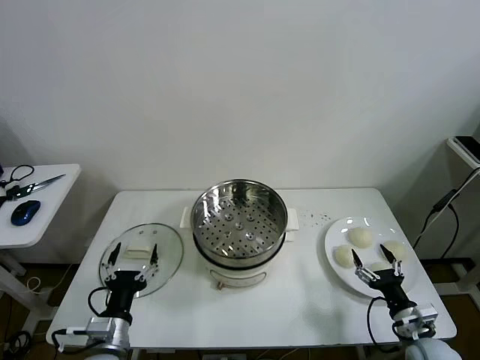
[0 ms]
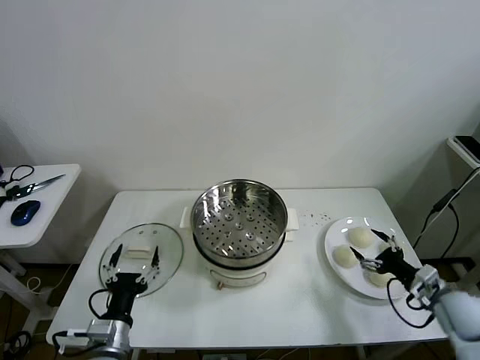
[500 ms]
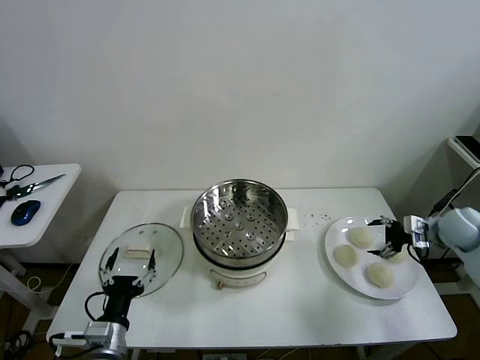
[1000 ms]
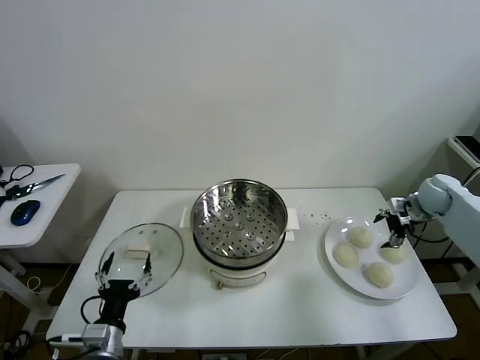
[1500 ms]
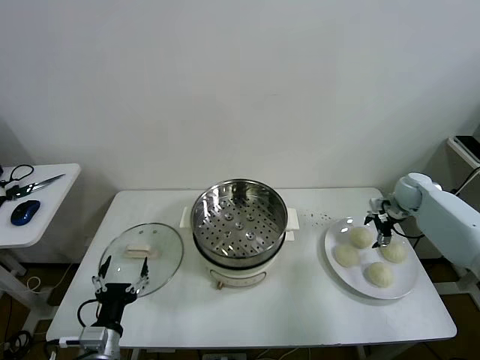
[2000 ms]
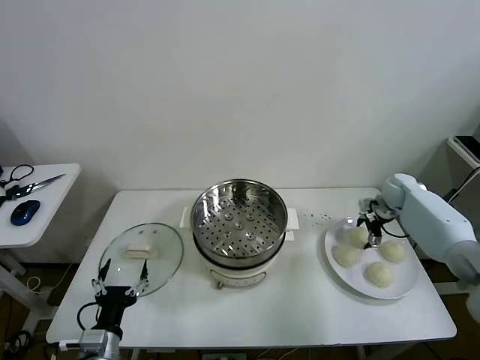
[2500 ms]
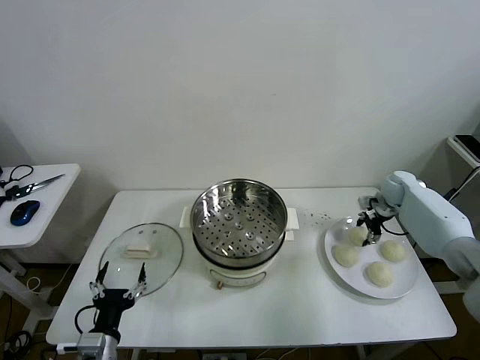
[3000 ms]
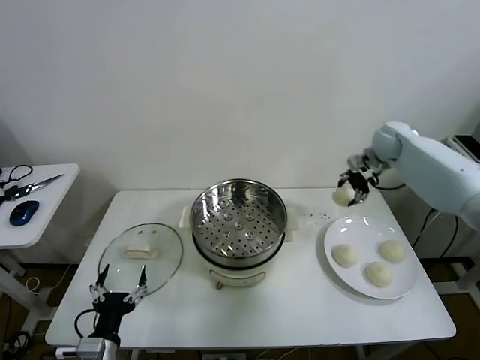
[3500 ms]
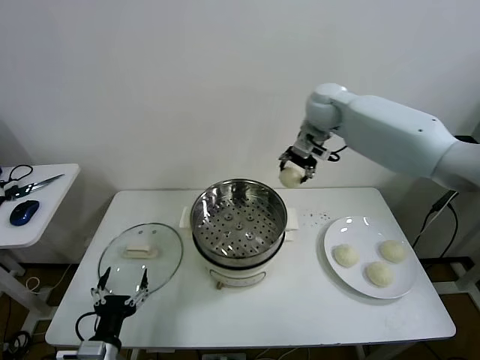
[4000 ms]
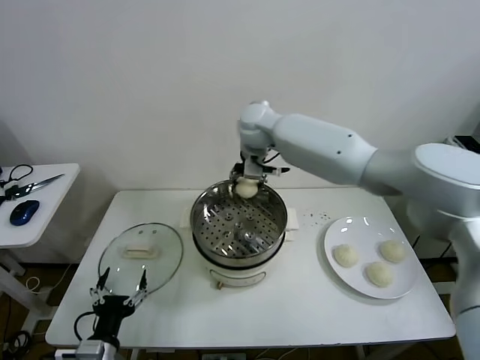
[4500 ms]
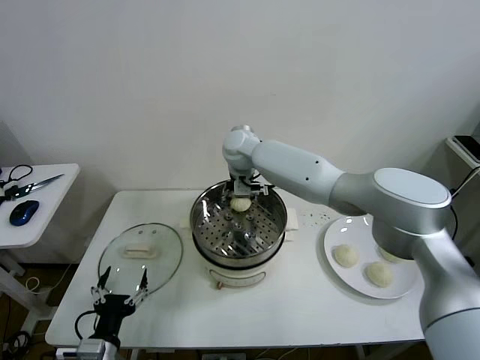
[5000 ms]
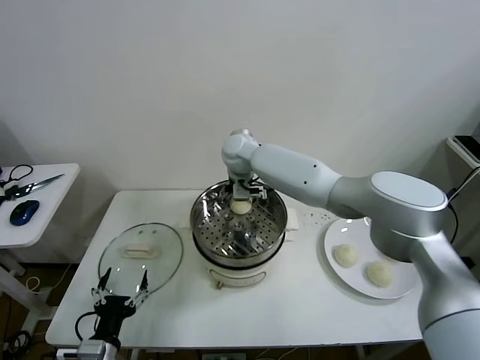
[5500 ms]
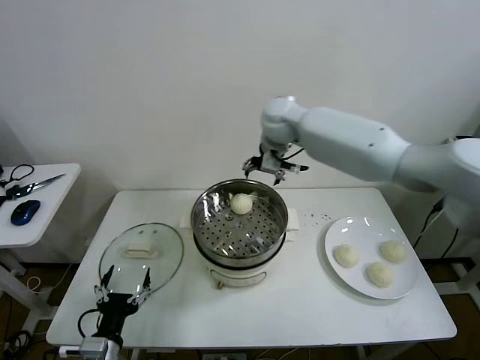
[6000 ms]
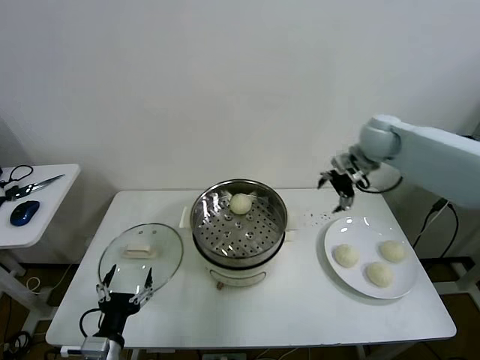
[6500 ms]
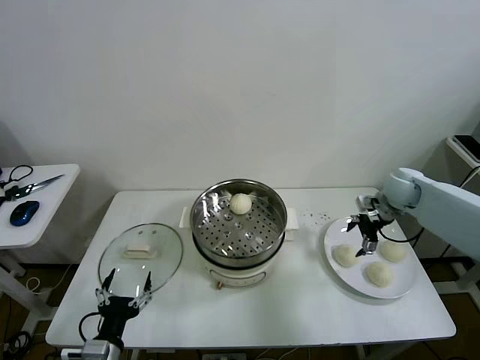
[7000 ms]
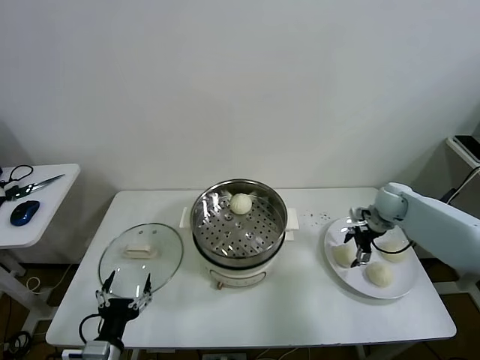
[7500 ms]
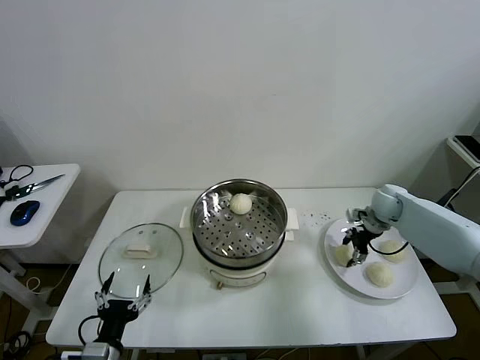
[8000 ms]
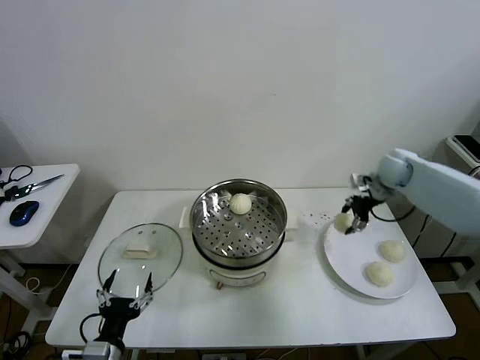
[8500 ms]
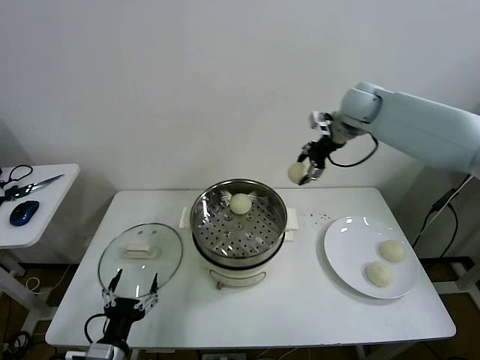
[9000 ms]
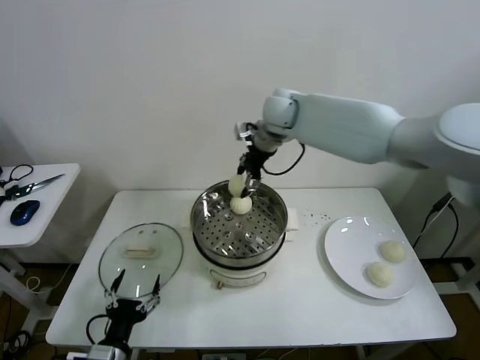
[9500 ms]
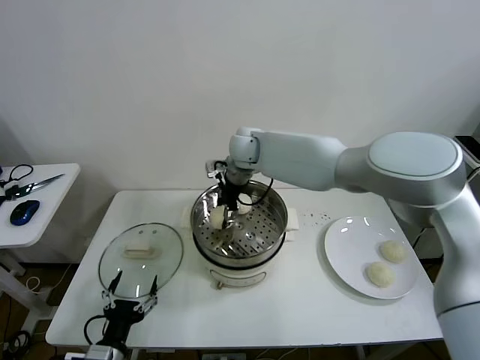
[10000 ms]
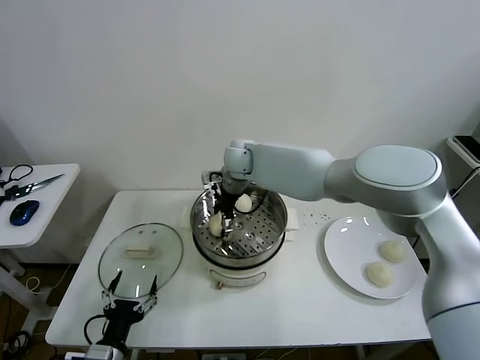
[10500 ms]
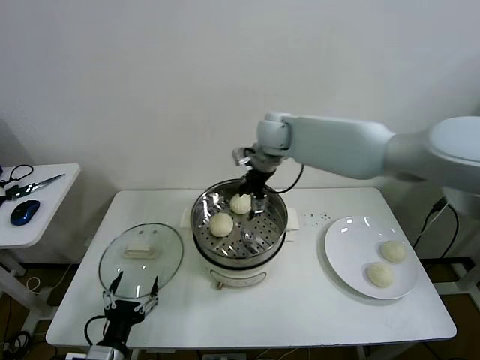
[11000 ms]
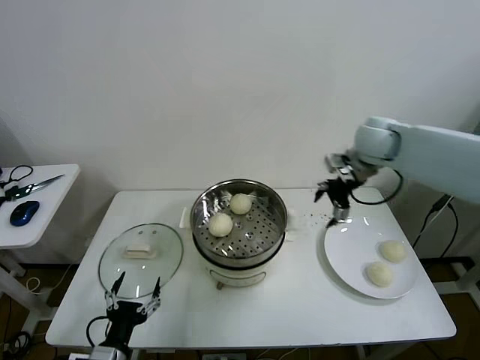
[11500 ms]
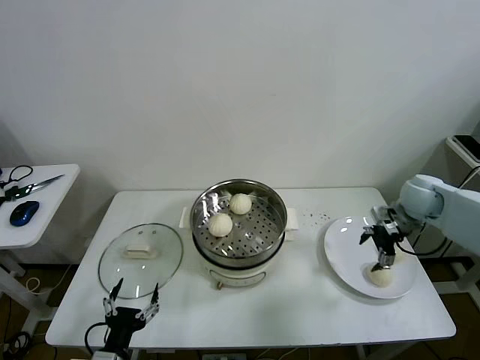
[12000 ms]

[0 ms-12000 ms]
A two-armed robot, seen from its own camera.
Task of the whole recording: take steamed baozi put them in steamer then cover it.
Step, 0 ms to 2500 ms: Grasp the baozi in the plate with right gripper.
Step, 3000 ms to 5500 ms: Place the baozi on the steamer with right gripper.
Step, 6000 ms to 7500 ms: Grasp the baozi in the plate with right gripper.
Step, 8500 ms to 10500 ms: Place the baozi on the steamer with right gripper.
2000 ms to 4000 ms: The right gripper goes about 35 cm to the left and upward, and closes.
4000 ms to 6000 ms: The right gripper is displaced to the left by approximately 10 cm, and opens.
6000 ms to 8000 ms: The right gripper is displaced to the right and downward by about 40 cm, and closes.
8000 ms to 10000 ms: The right gripper goes about 40 cm to the left and upward.
10000 ms to 12000 ms: The right gripper heads to the right, covering about 40 cm, and opens up.

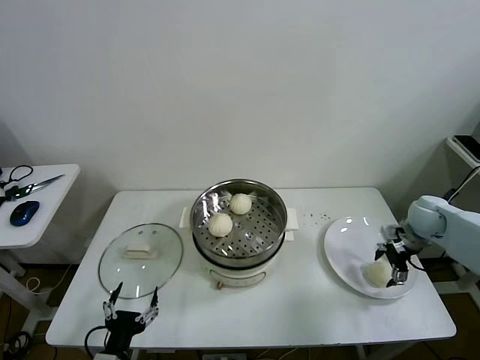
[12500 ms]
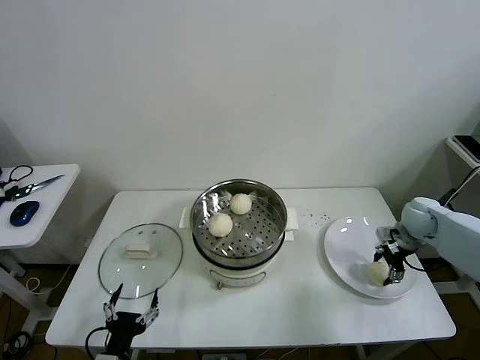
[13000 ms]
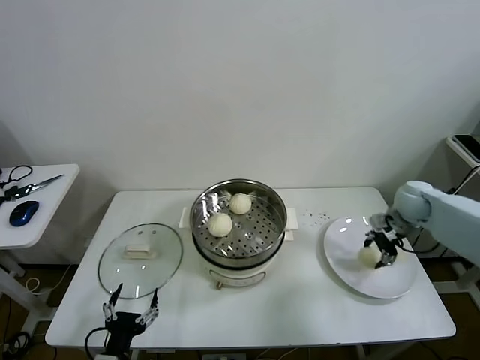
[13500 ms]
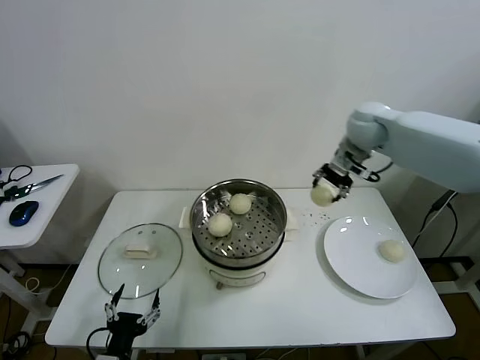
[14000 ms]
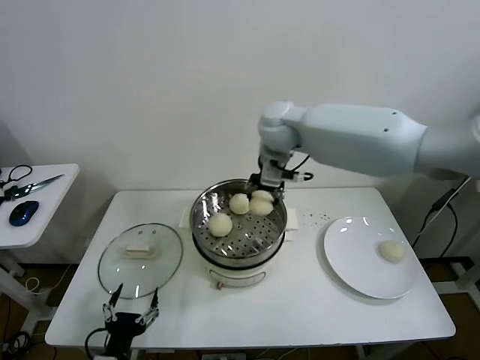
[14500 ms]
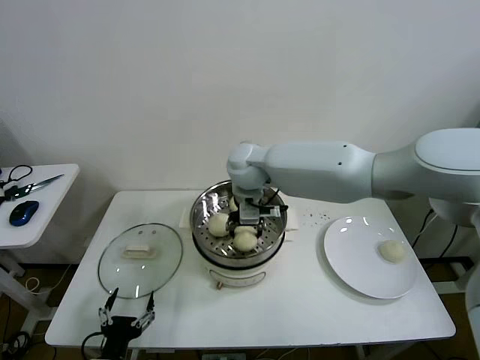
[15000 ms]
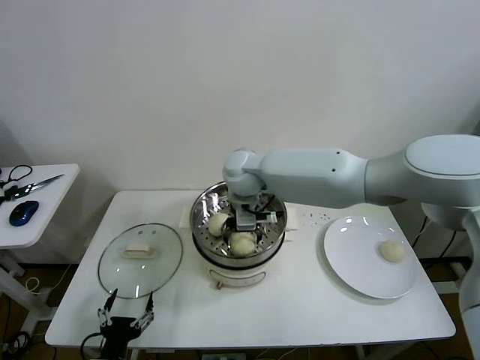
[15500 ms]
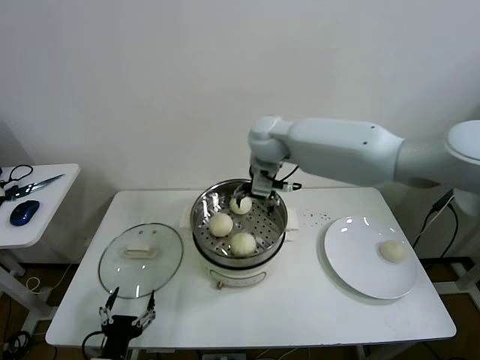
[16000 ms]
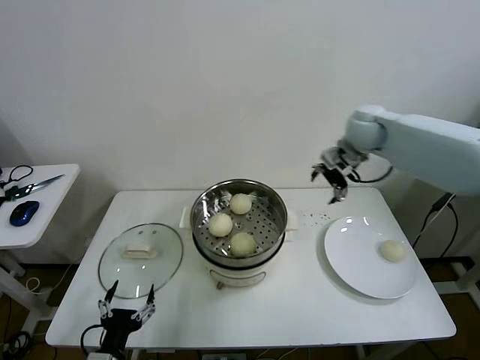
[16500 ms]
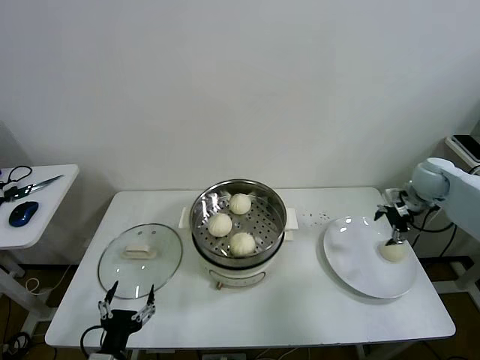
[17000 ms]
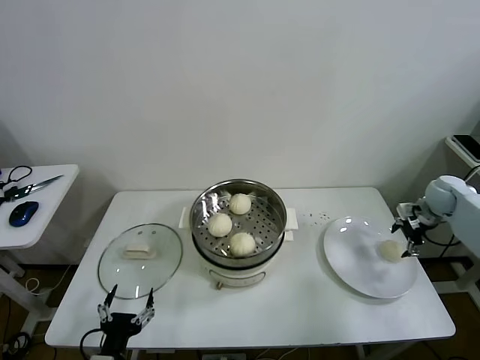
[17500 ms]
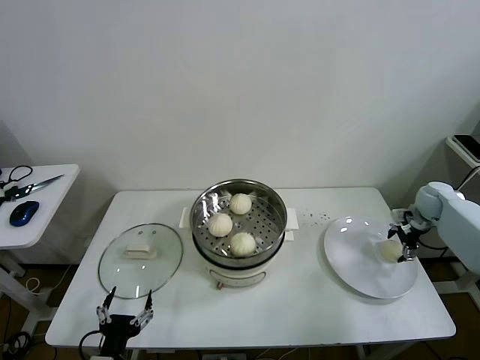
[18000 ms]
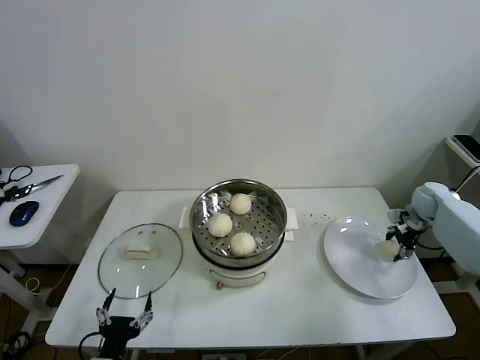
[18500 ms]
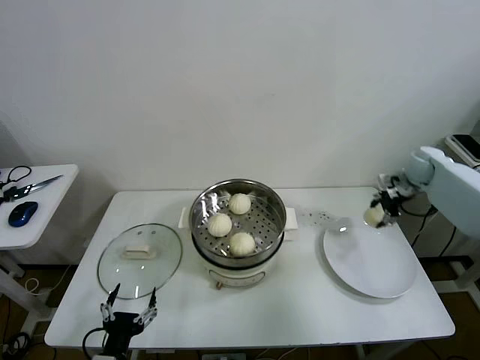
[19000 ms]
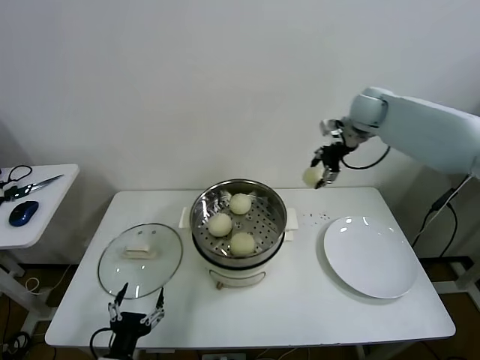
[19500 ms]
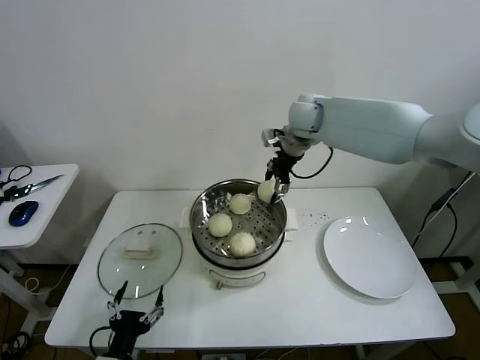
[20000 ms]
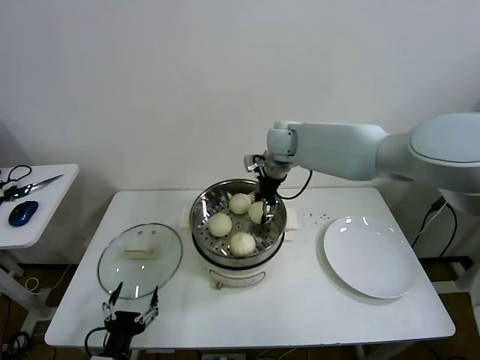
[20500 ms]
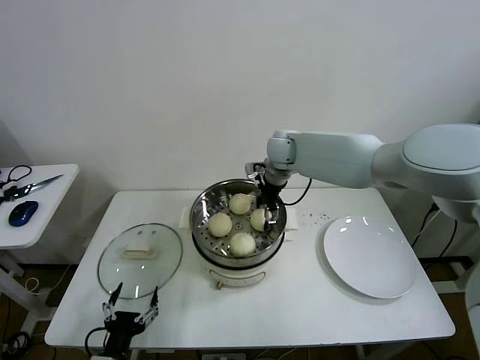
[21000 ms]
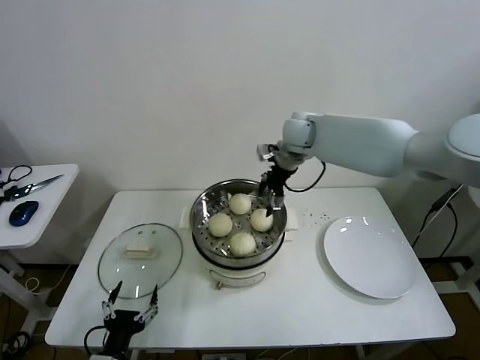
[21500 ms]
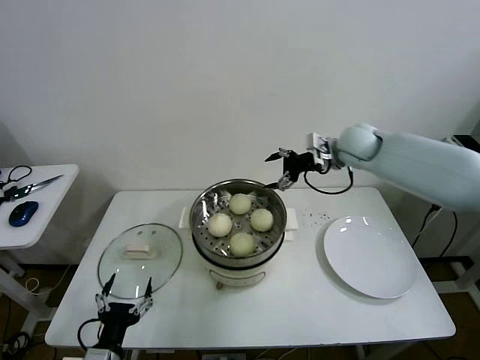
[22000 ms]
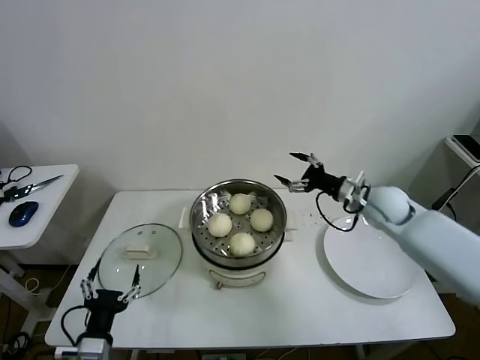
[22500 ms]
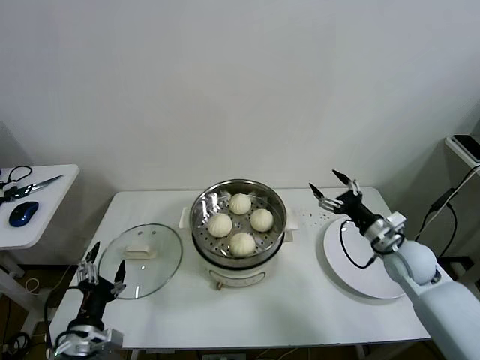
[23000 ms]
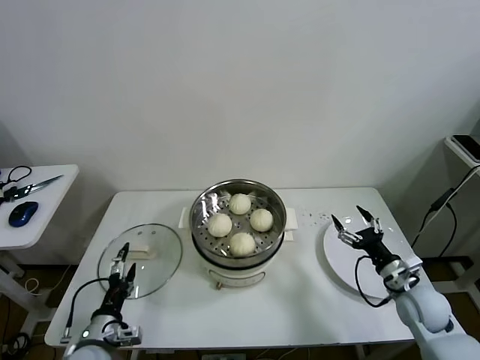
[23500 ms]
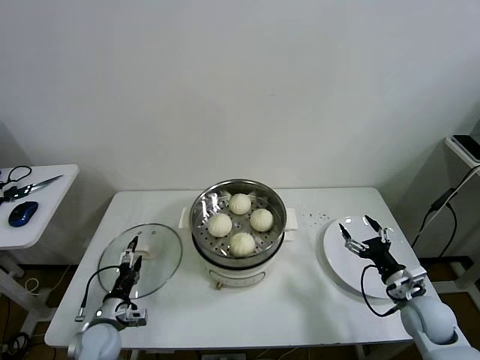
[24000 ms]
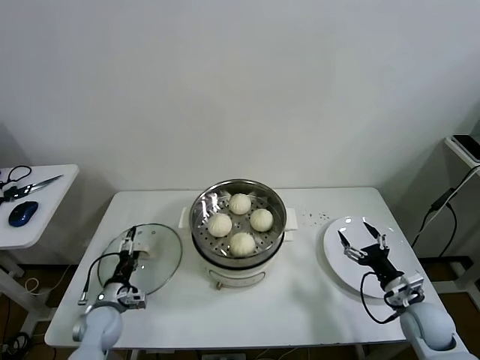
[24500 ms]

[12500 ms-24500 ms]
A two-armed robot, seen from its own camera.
Task of the whole recording: take steamed baozi put them in steamer then cover it.
Step, 13500 ms to 15500 ms: Place the baozi on the steamer with right gripper.
Step, 16000 ms to 18500 ms: Grasp the baozi in the plate with right gripper.
Step, 19000 ms to 21000 ms: Place the baozi on the steamer with right gripper.
12500 ms to 14500 ms: The right gripper is displaced to the left and upward by approximately 40 cm, and closes its fingers.
14500 ms to 16500 ms: The right gripper is displaced to the right by approximately 20 cm, and opens.
16500 ms to 18500 ms: The right gripper is displaced to the right and downward by about 30 cm, and closes its fingers.
18500 ms to 20500 ms: The right gripper shifts roughly 40 cm to the left and upward.
20500 ms to 22500 ms: The right gripper moves to the right, backward and downward, some 25 cm, and opens up.
22500 ms to 24500 ms: The right gripper heads backward and downward, covering roughly 25 cm. The left gripper shifts about 20 cm forward, downward and to the left.

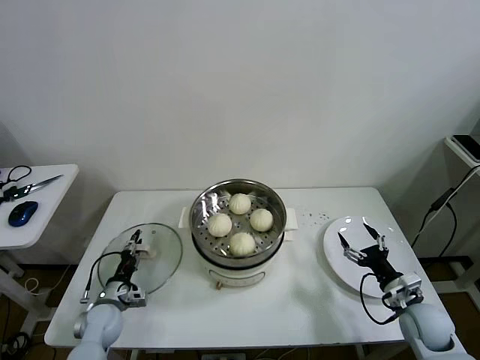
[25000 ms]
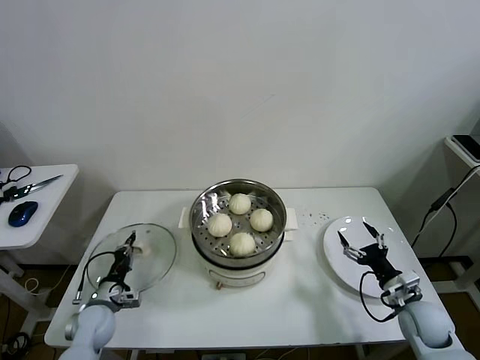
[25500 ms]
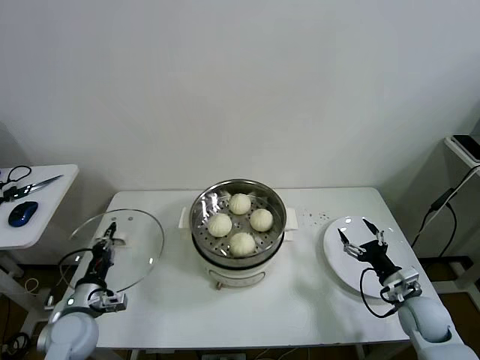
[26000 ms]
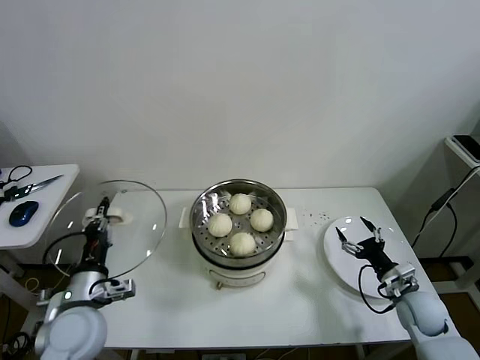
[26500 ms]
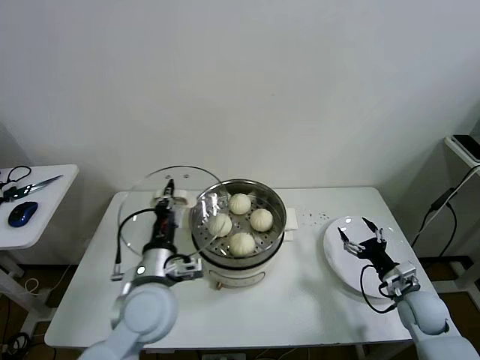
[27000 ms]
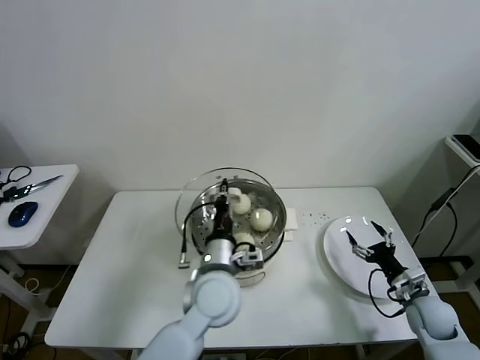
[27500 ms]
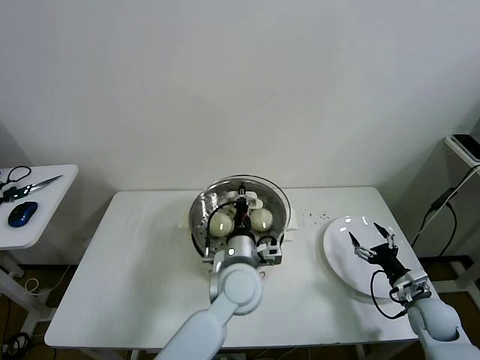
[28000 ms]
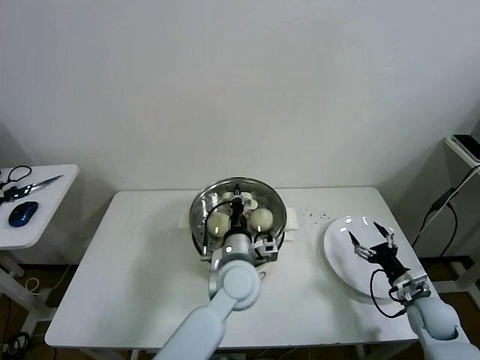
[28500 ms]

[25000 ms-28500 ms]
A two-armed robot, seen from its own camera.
Task of the whole recording: take steamed baozi put them in steamer then cover it.
25000 ms to 27000 ms: The left gripper heads upward and to the right, covering some 30 cm, and closes its fingers.
27000 ms to 28500 ms: The left gripper goes roughly 20 cm to the right and forward.
